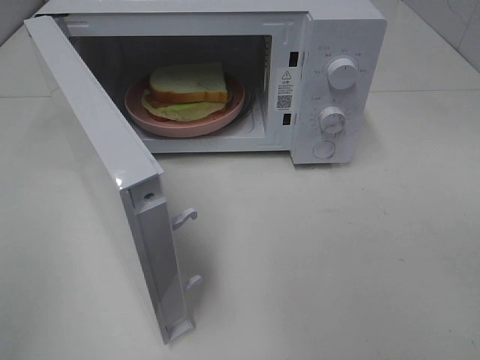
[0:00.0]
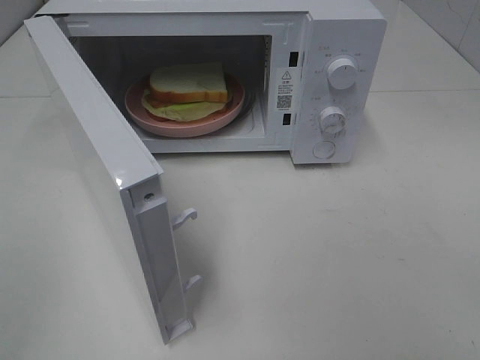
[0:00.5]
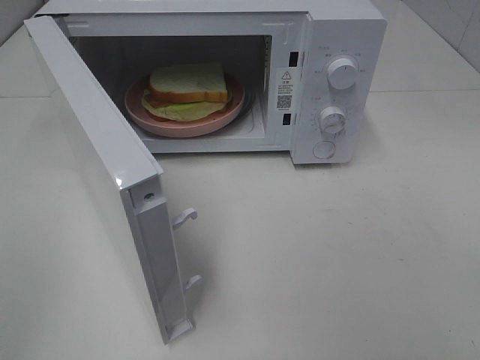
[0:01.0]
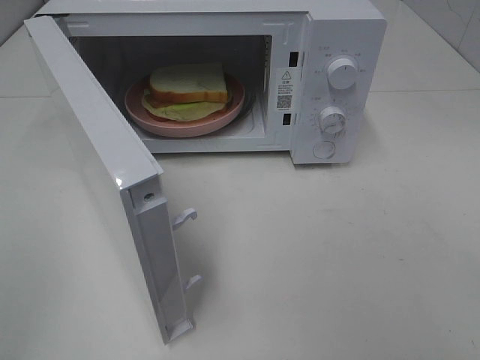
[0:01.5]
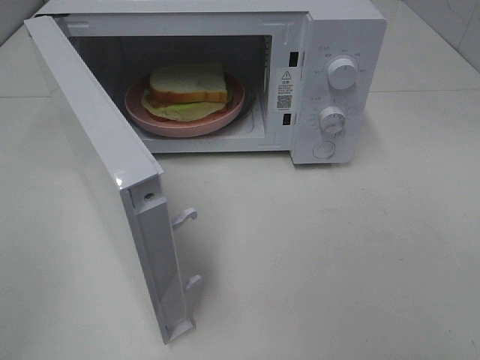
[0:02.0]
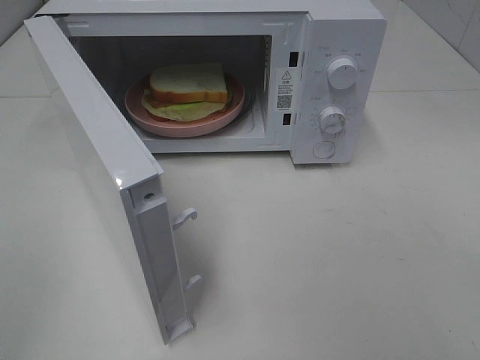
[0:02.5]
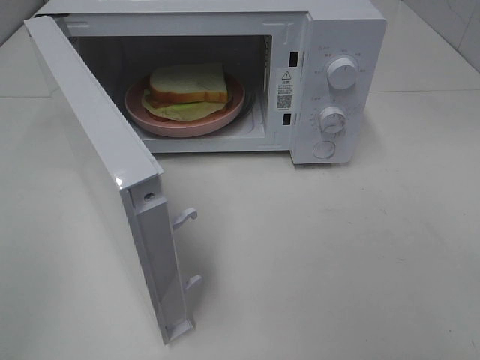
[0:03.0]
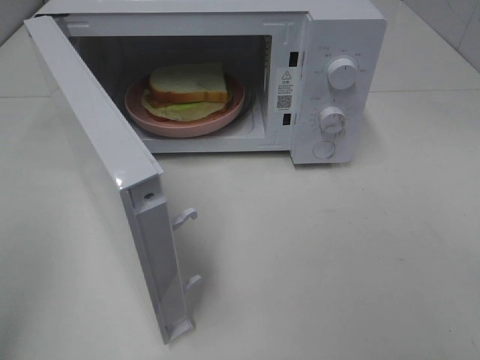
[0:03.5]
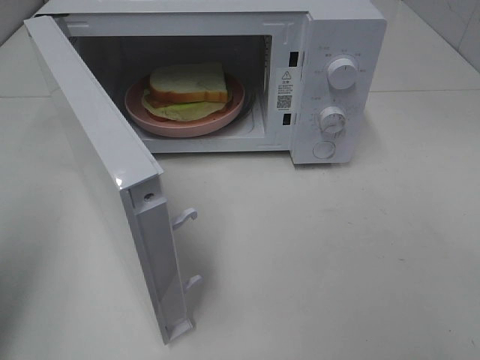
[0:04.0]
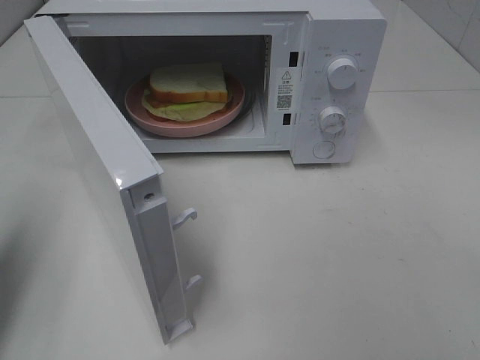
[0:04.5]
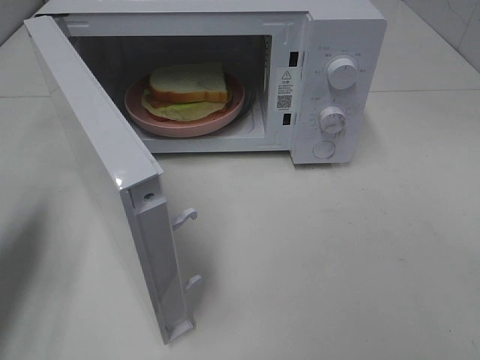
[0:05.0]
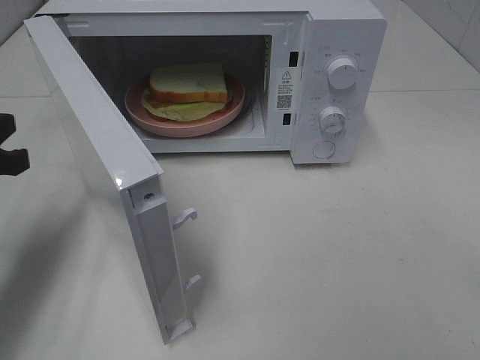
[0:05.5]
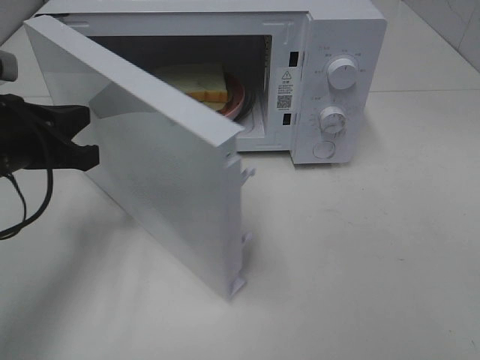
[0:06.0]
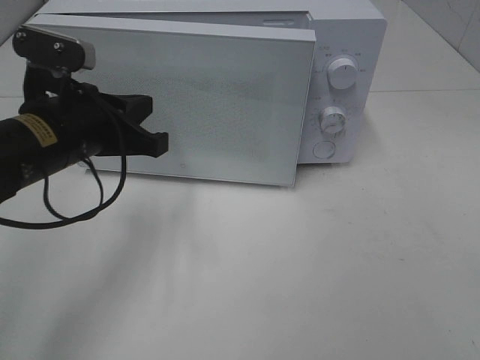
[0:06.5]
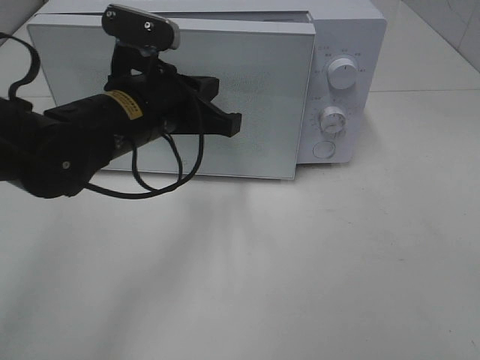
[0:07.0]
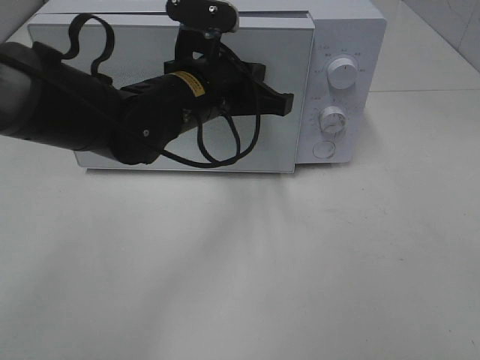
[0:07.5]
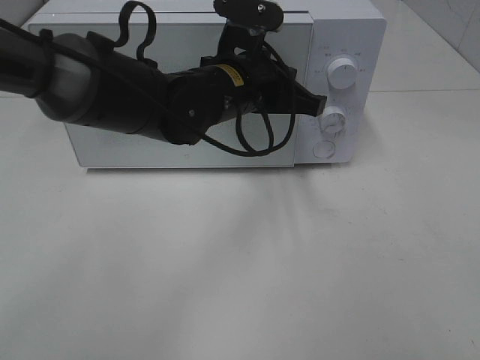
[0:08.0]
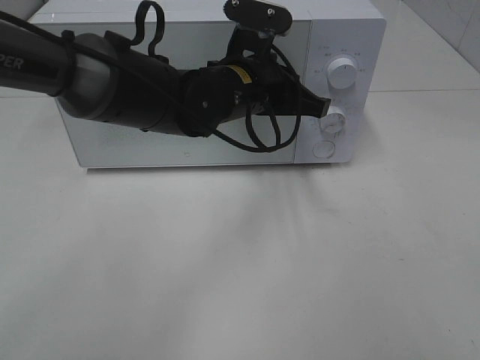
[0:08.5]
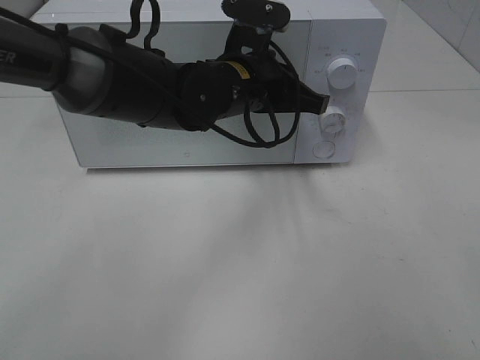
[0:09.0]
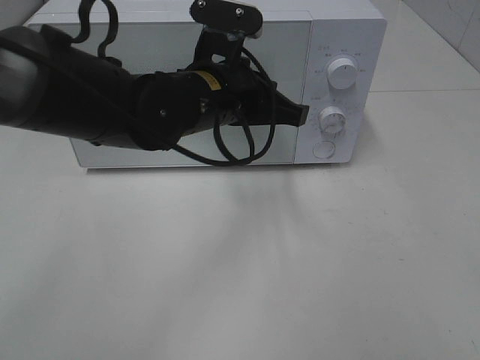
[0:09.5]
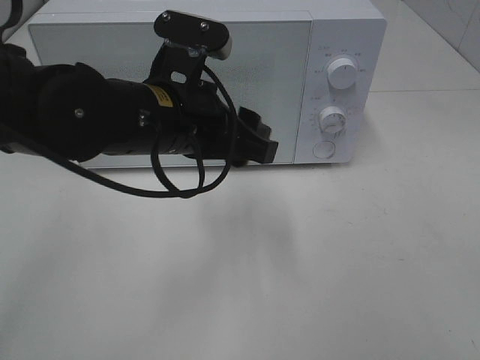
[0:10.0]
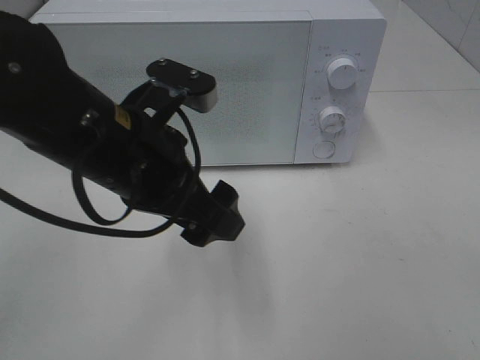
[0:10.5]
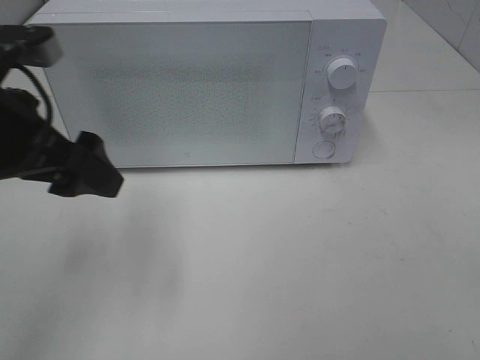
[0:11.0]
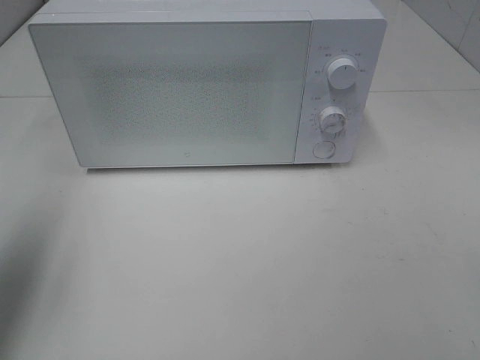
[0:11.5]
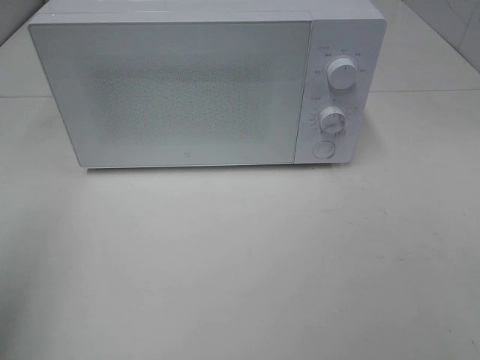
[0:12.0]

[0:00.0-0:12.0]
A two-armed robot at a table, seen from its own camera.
Task of the whole recording: Heat Sandwich.
Step, 0:00.0 to 0:09.5: Left hand: close the microwave door.
0:02.0 to 0:04.0: The left gripper shifts approximately 10 cm forward, and closes up.
0:04.0 to 0:06.0: The left gripper goes roughly 20 cm forward, to the right and downward.
0:06.0 to 0:08.0: The left gripper shifts approximately 25 cm to the right and forward.
0:08.0 to 0:10.0: The left gripper goes about 10 cm backward and to the left, and opens up.
0:10.0 to 0:12.0: The left gripper travels to the left and backward by some 30 cm.

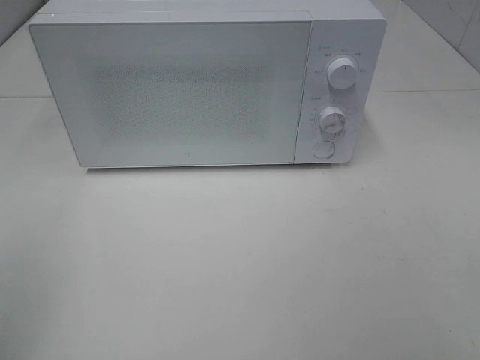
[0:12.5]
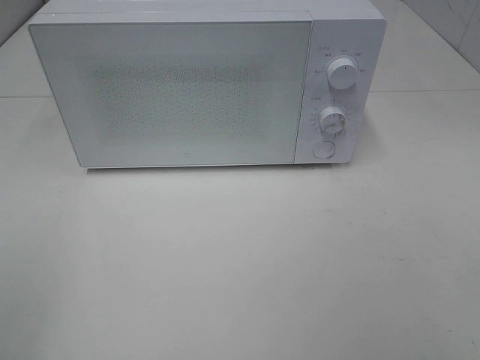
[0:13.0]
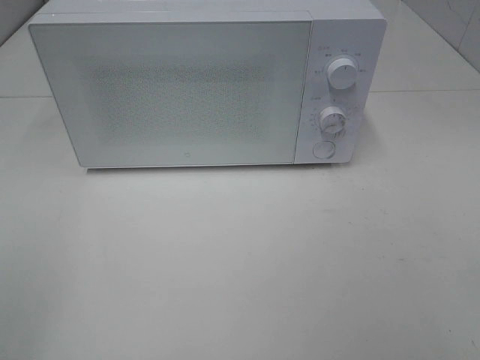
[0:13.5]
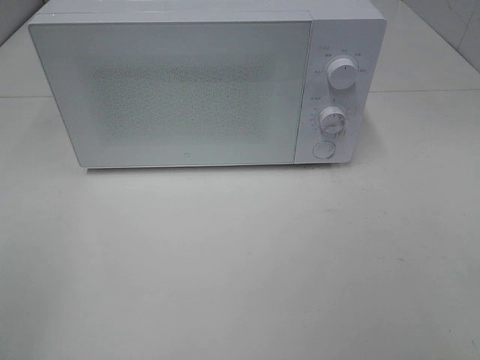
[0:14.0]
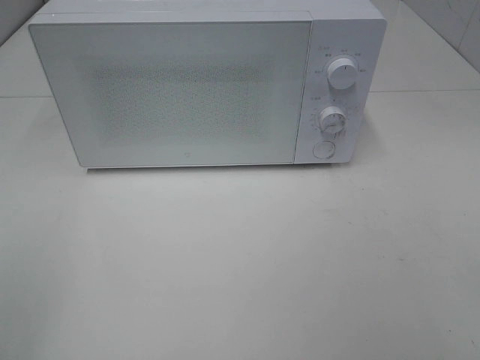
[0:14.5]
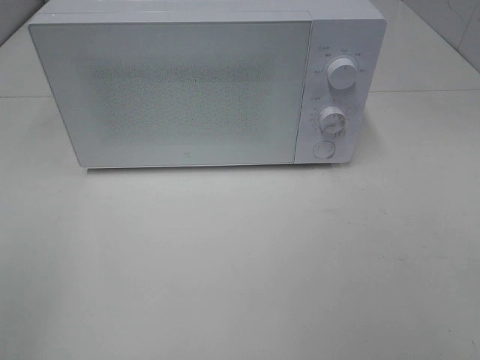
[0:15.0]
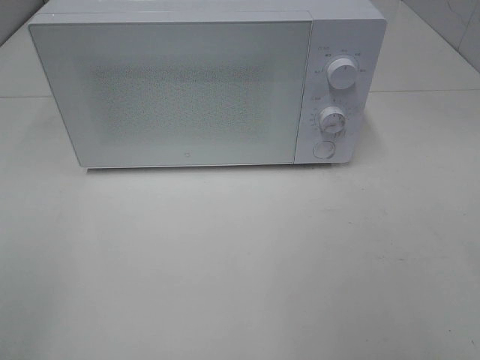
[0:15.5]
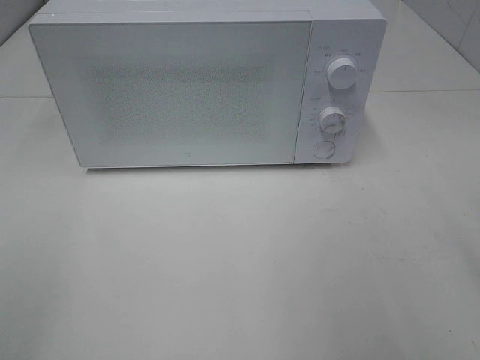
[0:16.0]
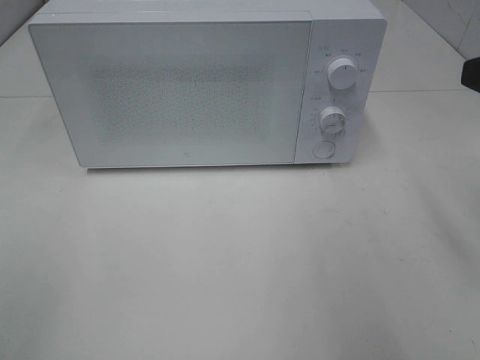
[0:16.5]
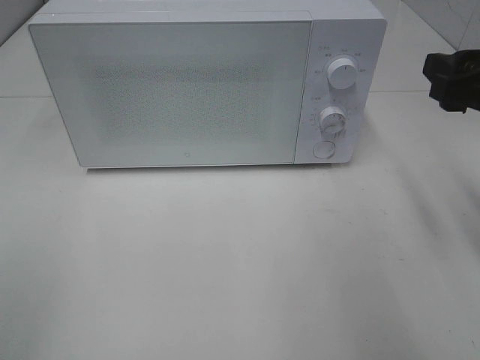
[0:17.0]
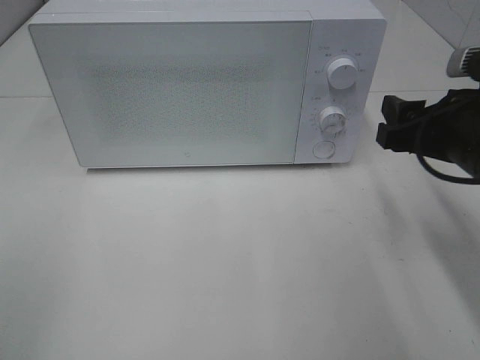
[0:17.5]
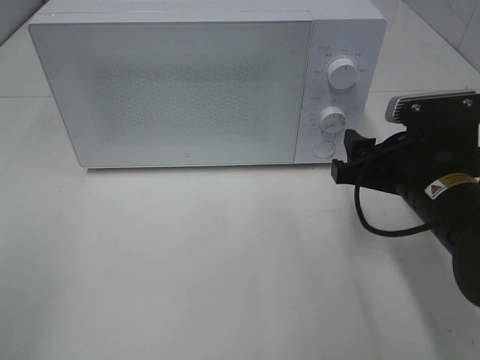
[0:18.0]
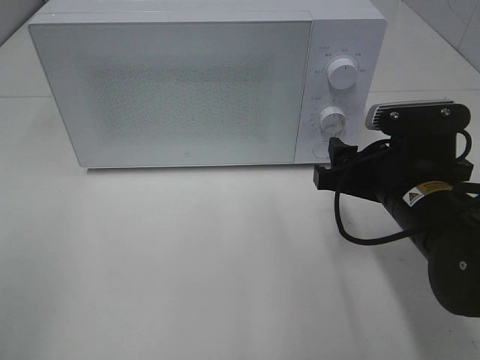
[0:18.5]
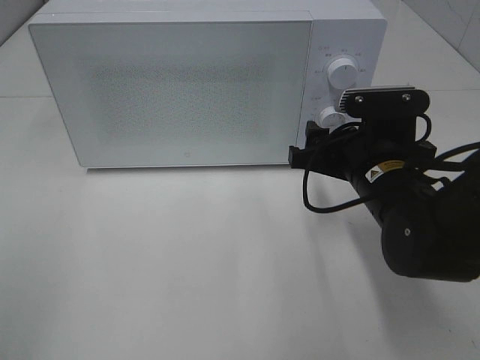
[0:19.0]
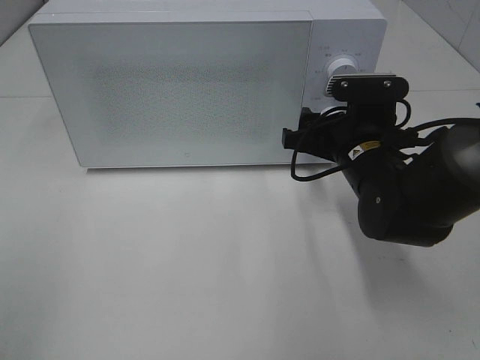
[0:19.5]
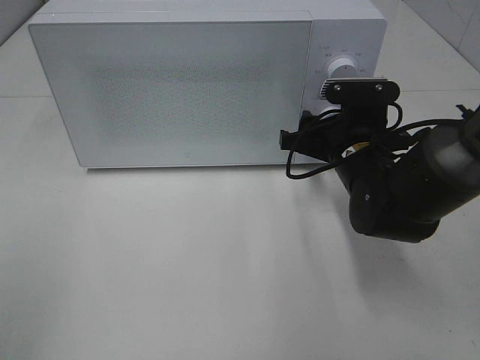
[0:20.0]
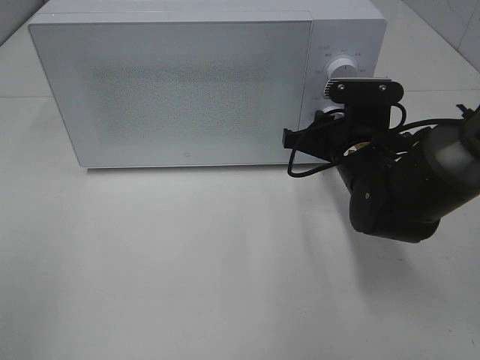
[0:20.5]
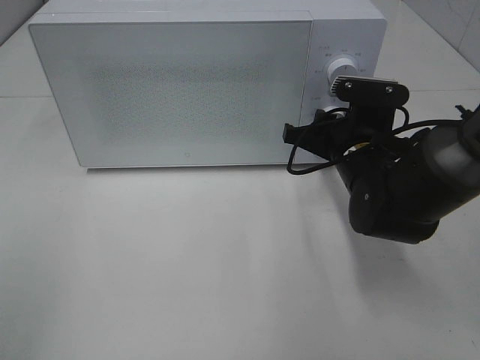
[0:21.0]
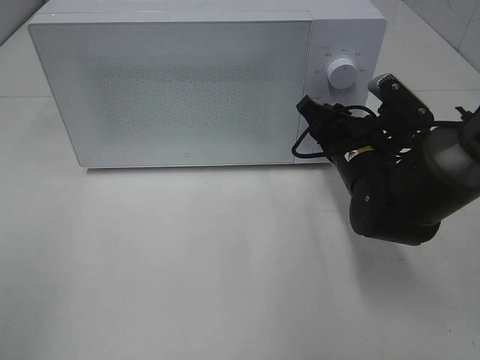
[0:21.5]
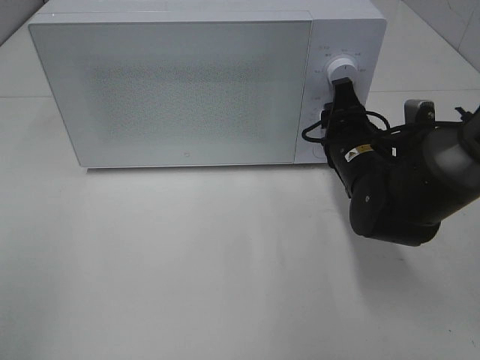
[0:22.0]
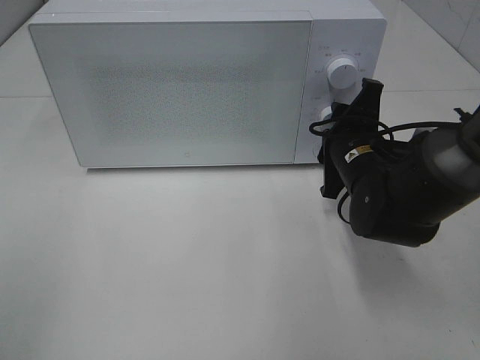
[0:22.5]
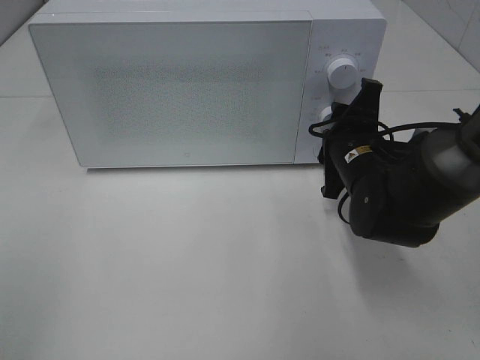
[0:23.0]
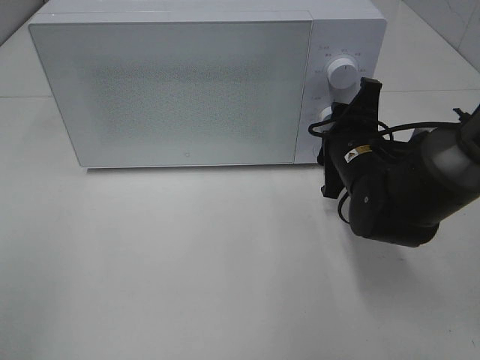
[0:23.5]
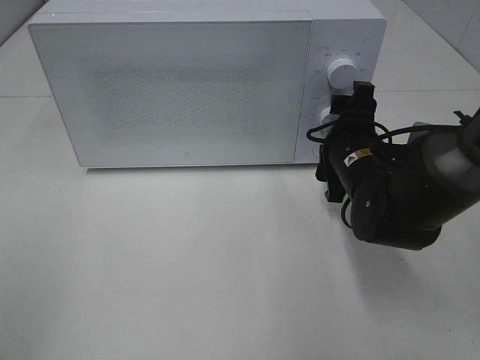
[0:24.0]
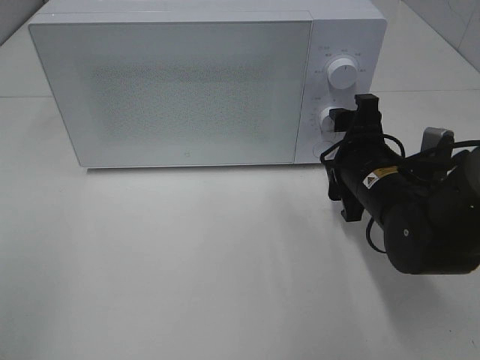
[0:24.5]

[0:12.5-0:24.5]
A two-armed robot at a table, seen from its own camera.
Task of the whole recording: Heat Sandwich.
Step, 0:12.5 to 0:24.0: Right hand: twist timer button.
0:16.5 to 0:18.5: The right gripper is displaced downward and to the left by some 20 cm.
0:18.5 to 0:20.5: The right gripper heads forward, covering some 10 cm, and closes.
0:22.5 to 0:24.5: The right gripper opens.

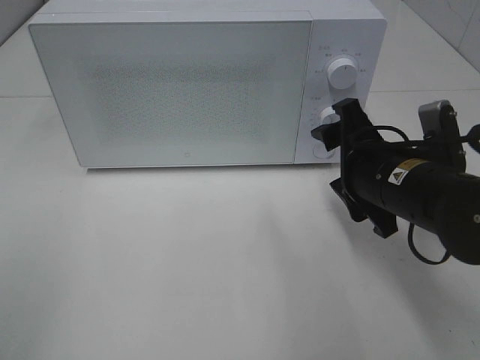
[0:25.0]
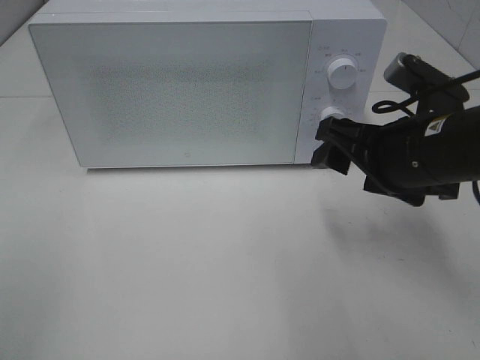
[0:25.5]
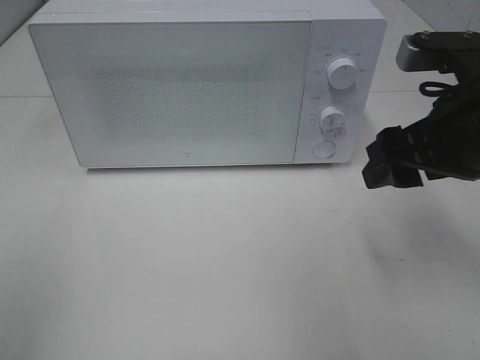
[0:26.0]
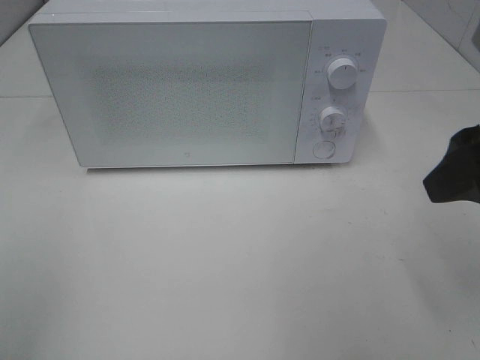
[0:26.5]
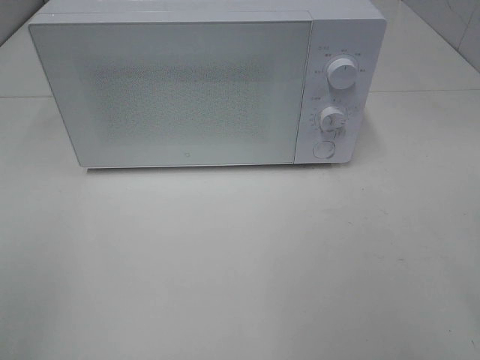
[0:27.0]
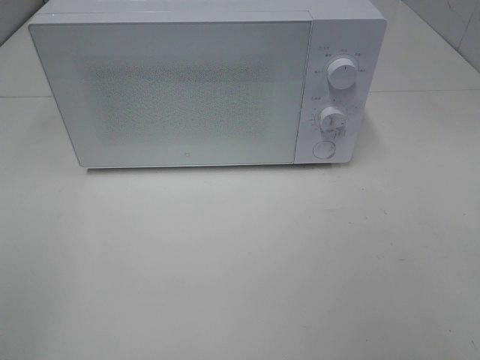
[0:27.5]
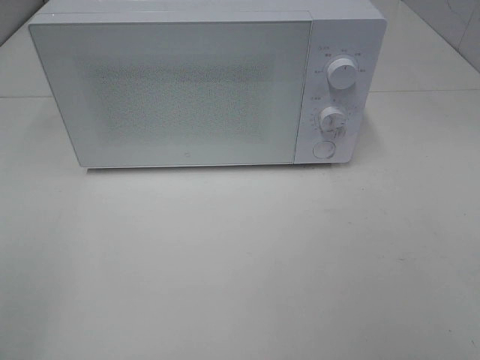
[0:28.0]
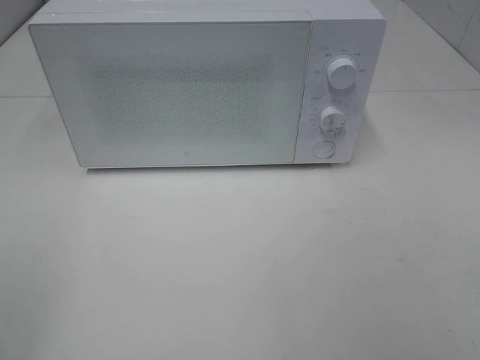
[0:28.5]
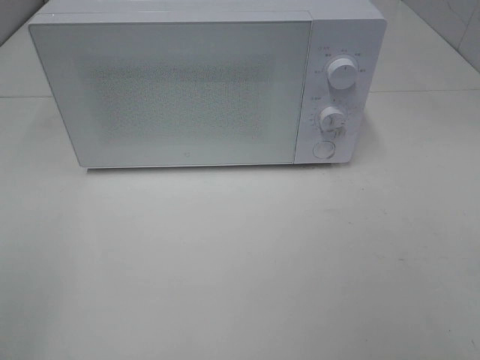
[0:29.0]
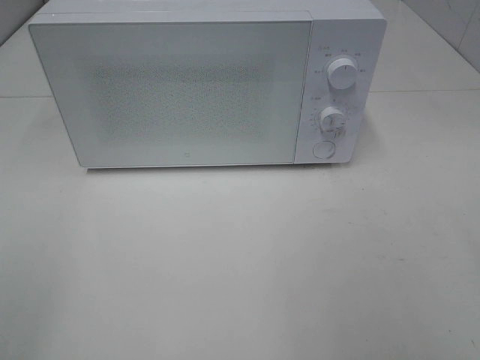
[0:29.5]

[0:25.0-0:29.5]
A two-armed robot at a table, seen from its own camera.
Task of the whole recording: Heat Sandwich.
0:25.0 to 0:27.0: The right gripper goes roughly 25 cm upward, backward and to the right.
